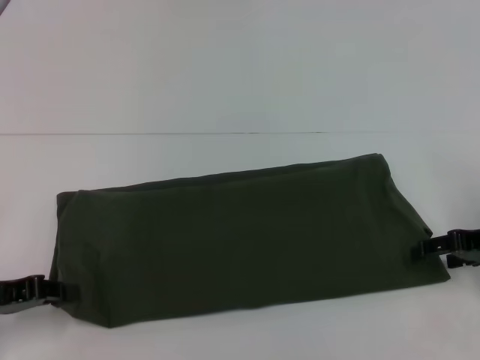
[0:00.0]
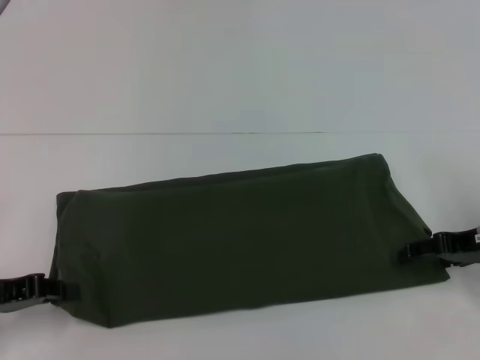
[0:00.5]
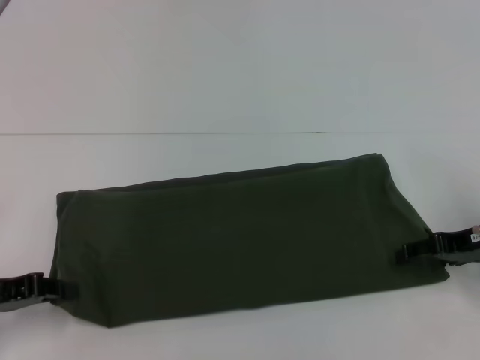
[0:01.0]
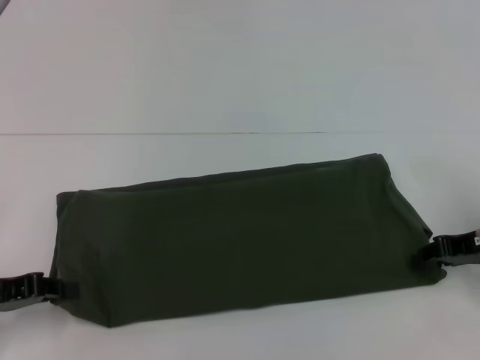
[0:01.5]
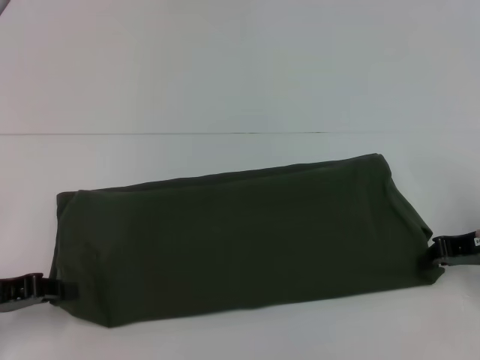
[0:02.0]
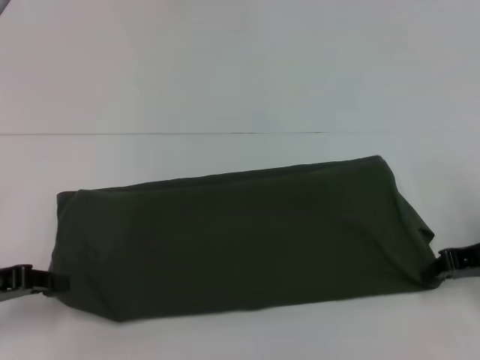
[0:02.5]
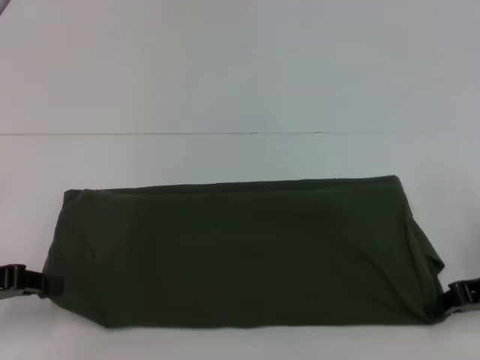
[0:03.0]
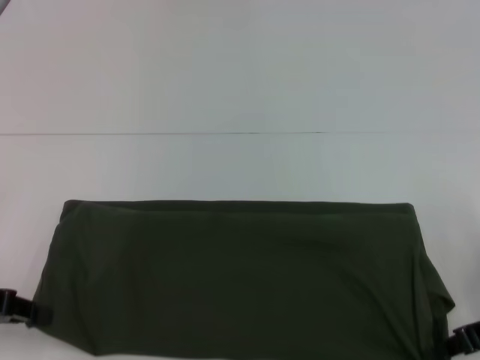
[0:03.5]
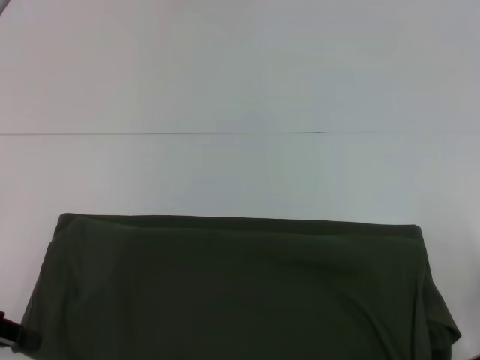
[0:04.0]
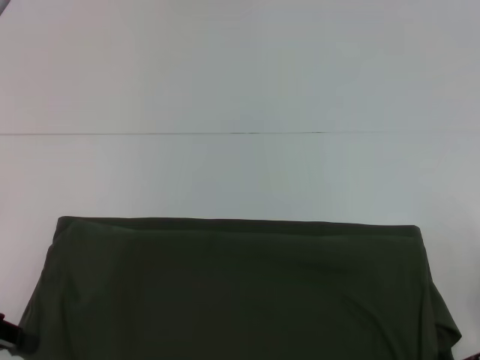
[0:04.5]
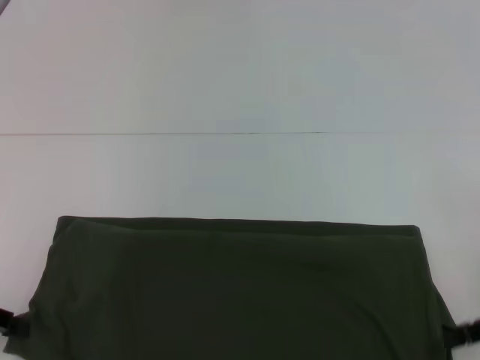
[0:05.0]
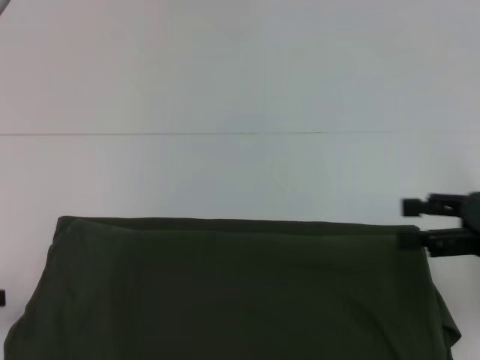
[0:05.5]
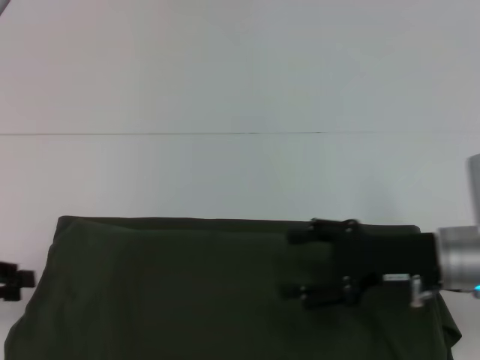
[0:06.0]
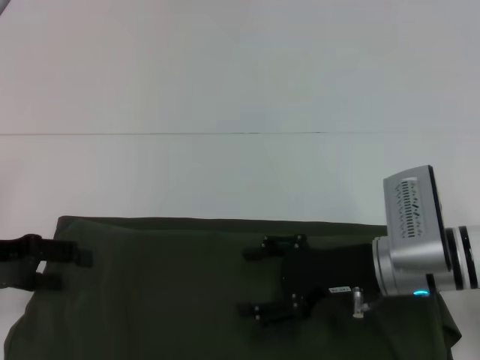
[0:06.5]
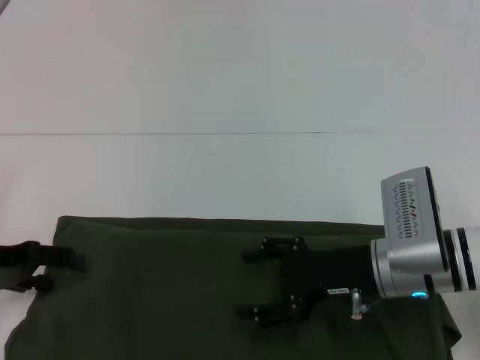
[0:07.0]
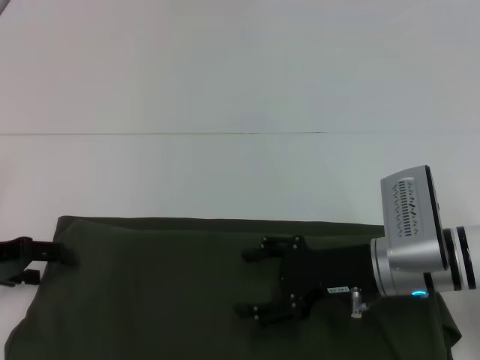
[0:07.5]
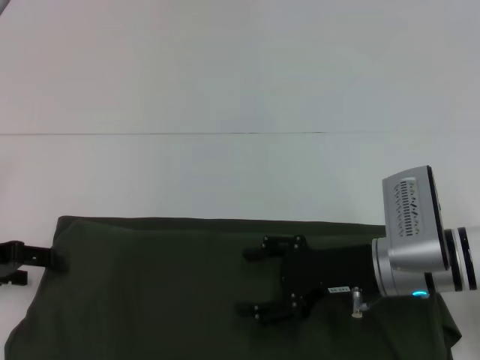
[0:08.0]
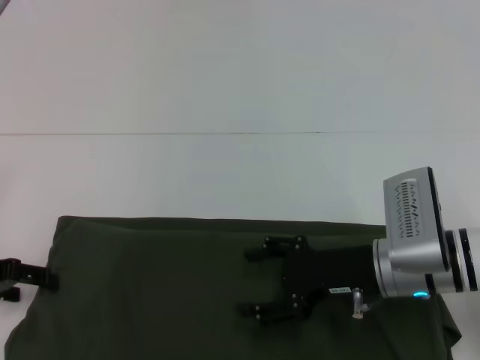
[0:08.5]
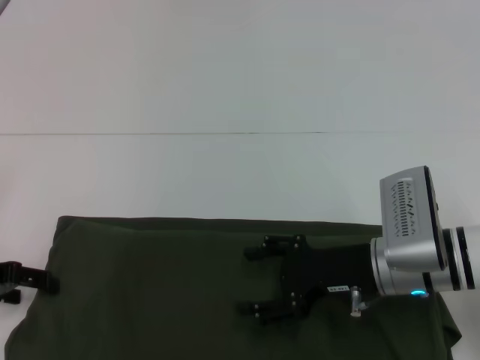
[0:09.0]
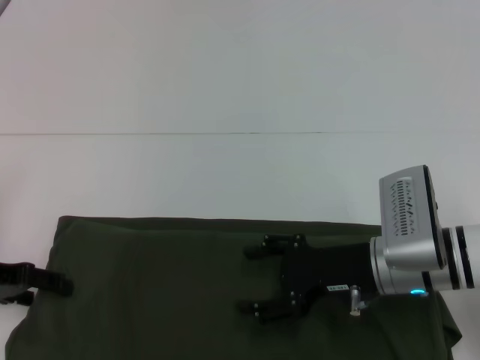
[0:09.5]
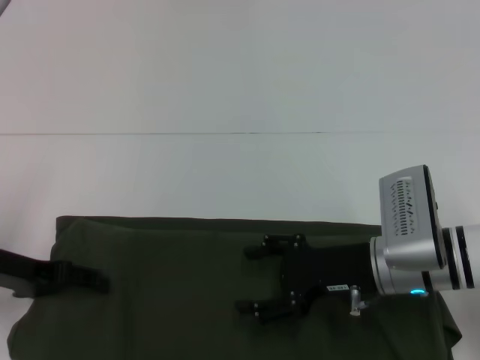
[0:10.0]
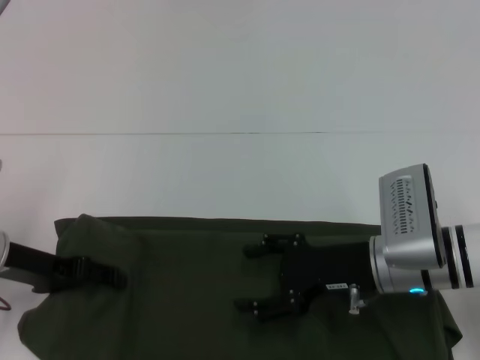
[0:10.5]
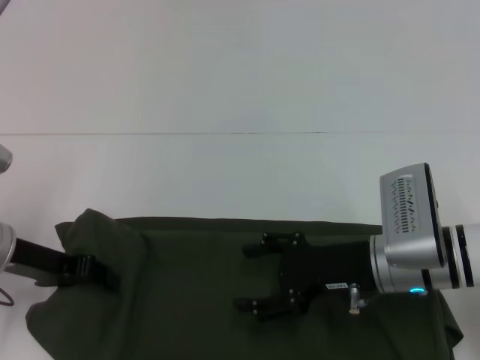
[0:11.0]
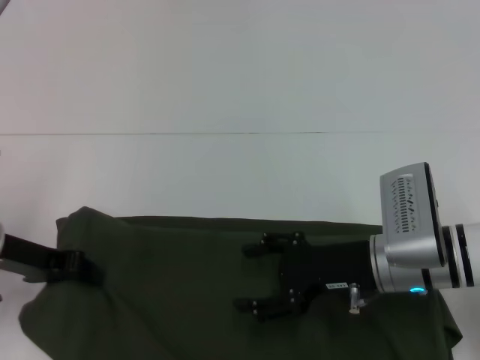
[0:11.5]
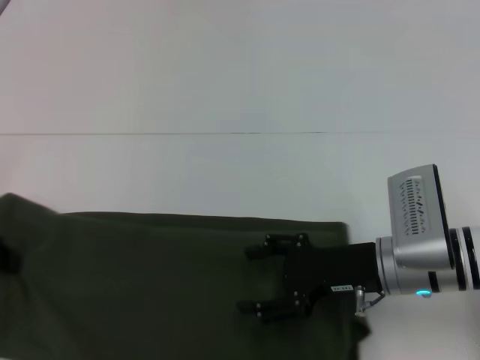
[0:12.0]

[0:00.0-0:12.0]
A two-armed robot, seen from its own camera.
0:02.0 to 0:04.0: The right gripper shifts roughly 10 cm backward.
0:04.0 to 0:06.0: The right gripper shifts some 10 cm to the left, and opens its fingers.
0:06.0 to 0:08.0: The left gripper ends up approximately 5 cm from where it was, and opens up. The right gripper shifts roughly 5 cm to the left.
0:08.0 to 0:10.0: There are only small adjustments of the grippers.
0:10.0 to 0:12.0: The left gripper ends up about 5 cm from where it was, and closes.

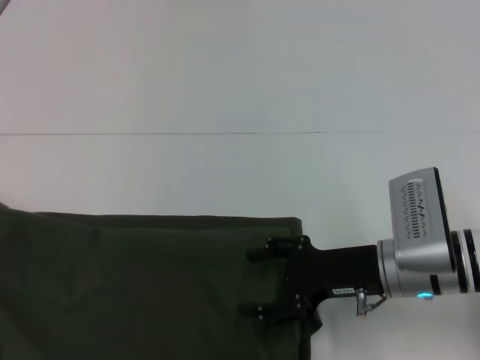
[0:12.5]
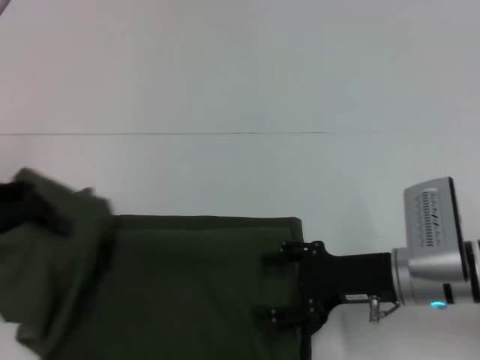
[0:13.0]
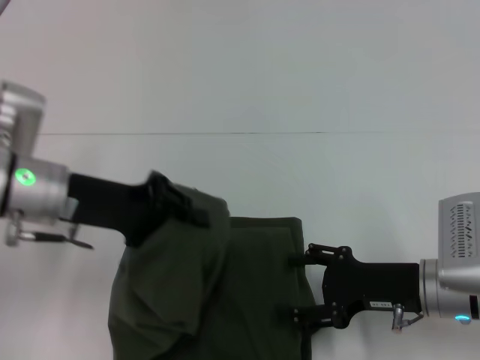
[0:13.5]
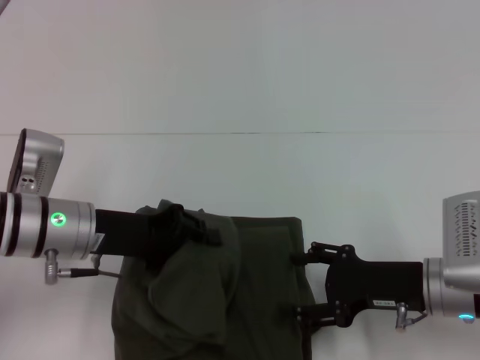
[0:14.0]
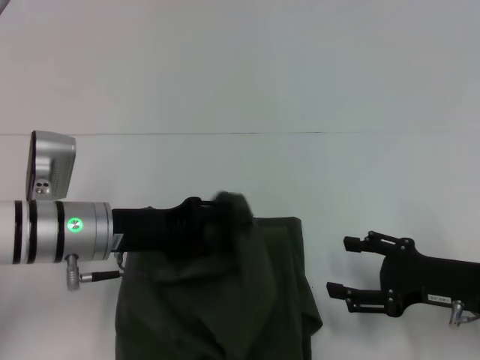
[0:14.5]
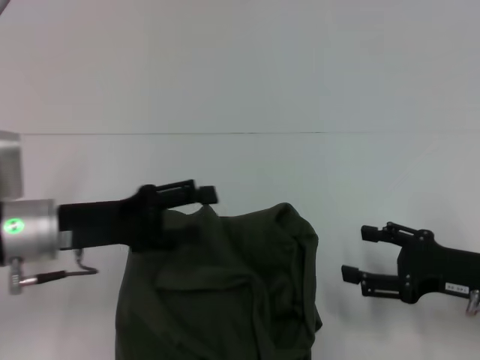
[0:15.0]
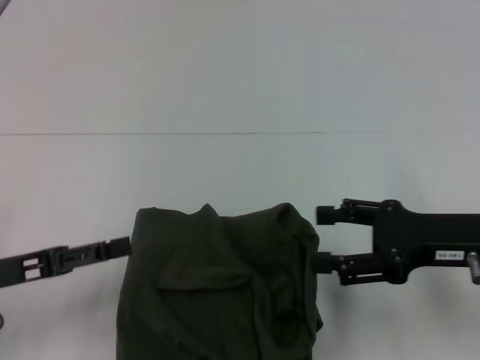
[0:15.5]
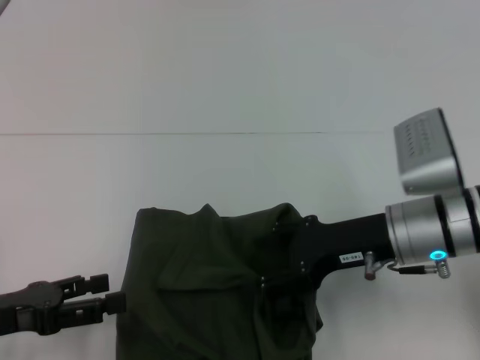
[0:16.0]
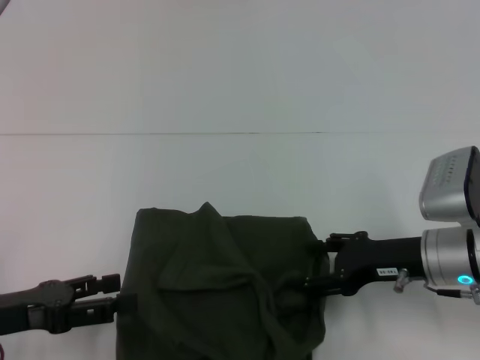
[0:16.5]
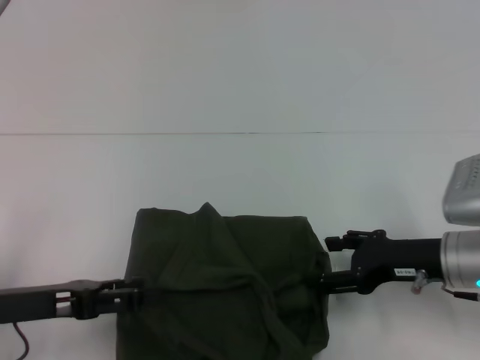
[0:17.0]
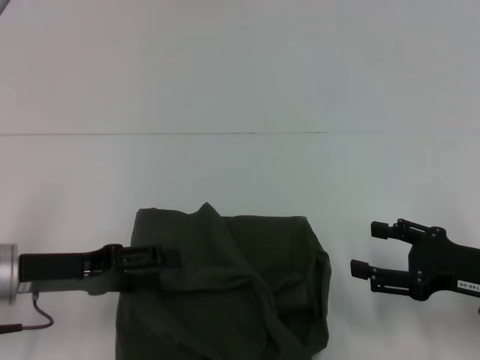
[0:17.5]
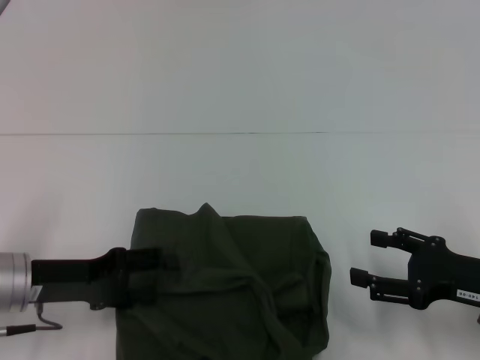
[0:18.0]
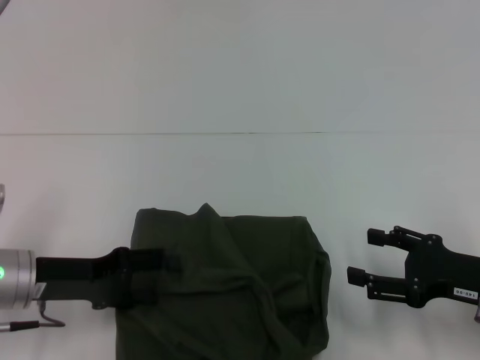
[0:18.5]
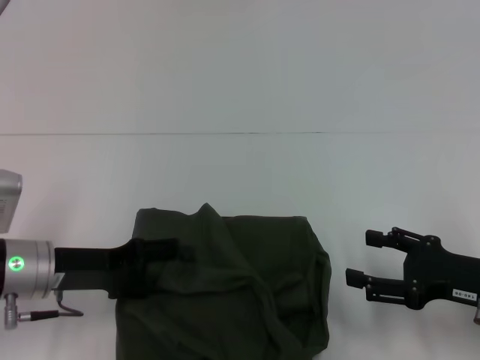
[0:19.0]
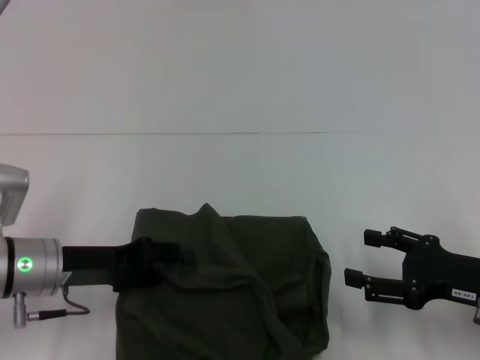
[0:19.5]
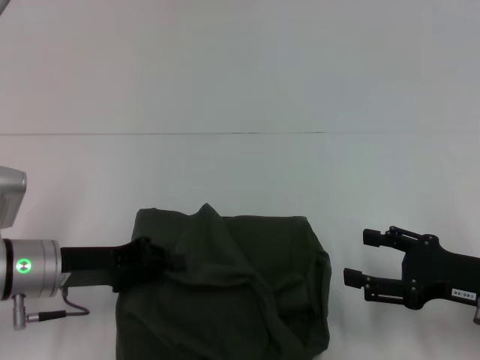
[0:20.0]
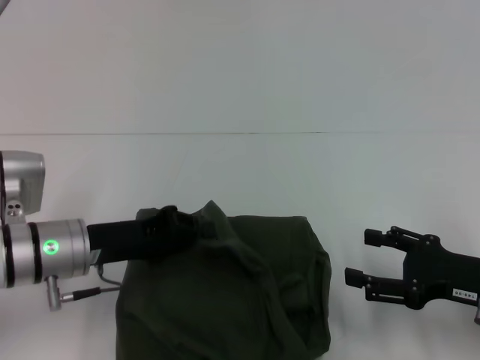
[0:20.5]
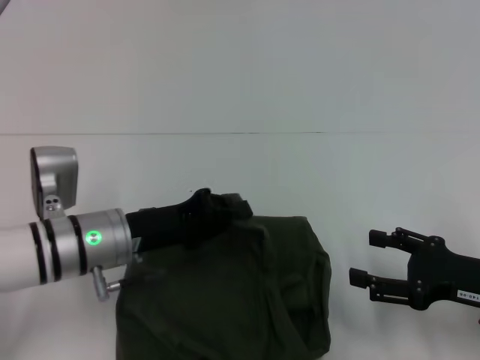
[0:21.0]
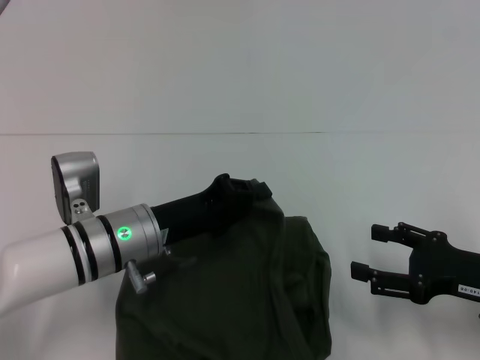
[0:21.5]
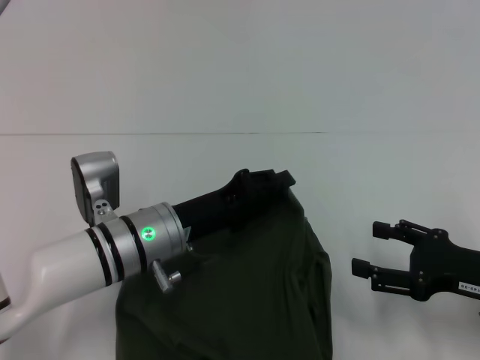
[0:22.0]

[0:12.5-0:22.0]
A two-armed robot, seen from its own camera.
0:12.5 to 0:14.5: The left gripper goes roughly 20 cm to the right, while the right gripper is displaced to the right by about 10 cm.
0:14.5 to 0:16.5: The left gripper shifts about 15 cm to the left and backward, and opens up.
0:16.5 to 0:18.0: The left gripper goes about 5 cm forward. The right gripper shifts roughly 10 cm to the right and backward.
0:18.0 to 0:20.0: The left gripper closes its fingers.
0:20.0 to 0:22.0: The left gripper travels to the right by about 10 cm.

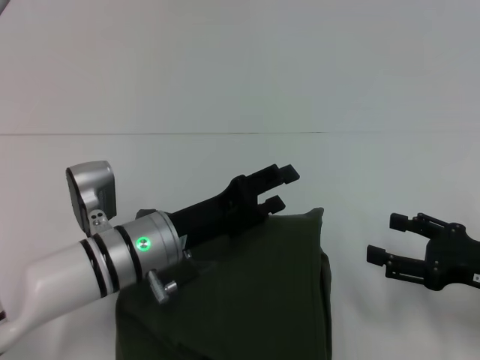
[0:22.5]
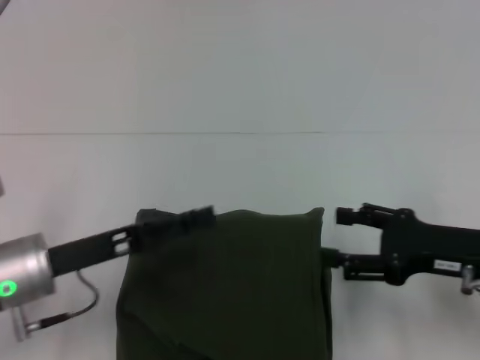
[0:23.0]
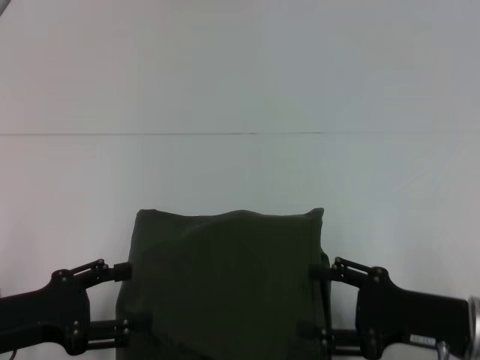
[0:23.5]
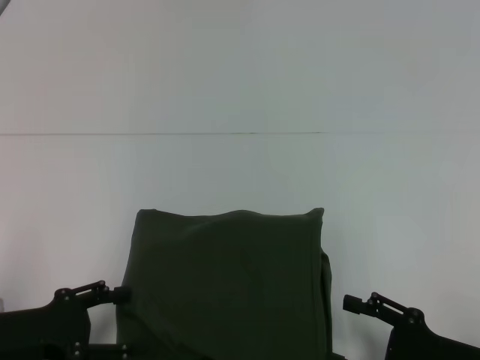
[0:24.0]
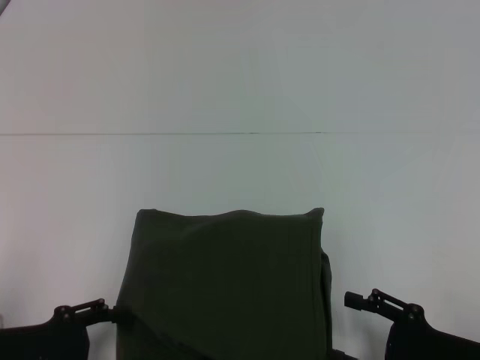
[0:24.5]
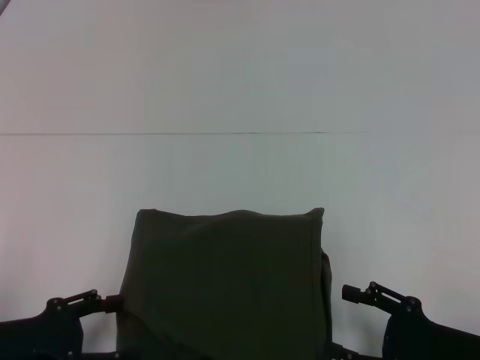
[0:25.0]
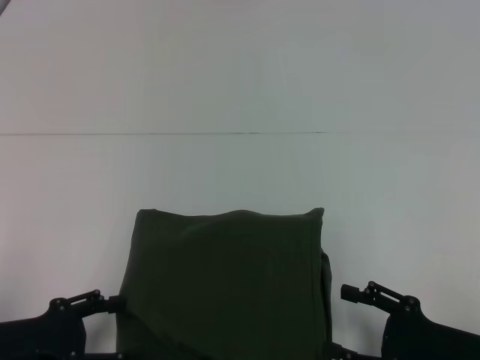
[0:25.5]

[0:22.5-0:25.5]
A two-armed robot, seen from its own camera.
0:22.5 to 0:24.0: The right gripper is displaced backward by some 5 cm, while the left gripper heads to the left and backward, covering some 20 cm, and opens its fingers.
0:24.0 to 0:25.5: The two grippers keep their place.
